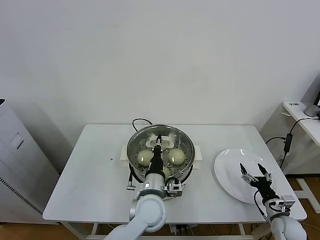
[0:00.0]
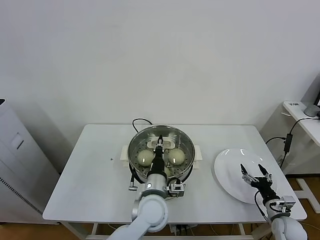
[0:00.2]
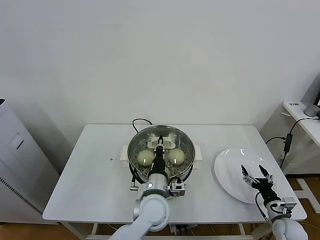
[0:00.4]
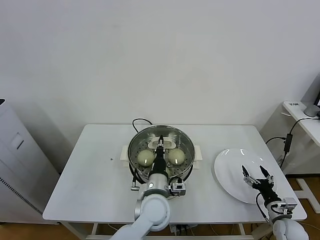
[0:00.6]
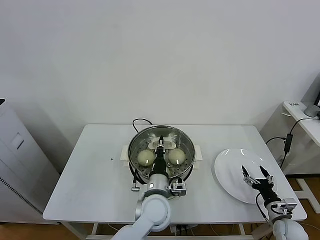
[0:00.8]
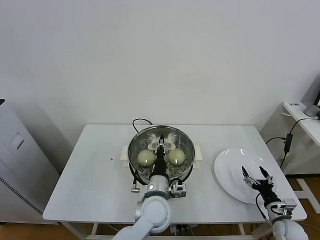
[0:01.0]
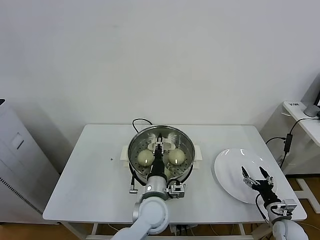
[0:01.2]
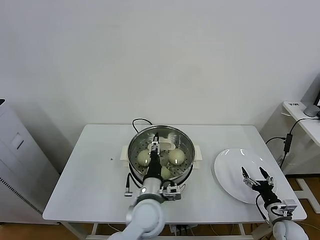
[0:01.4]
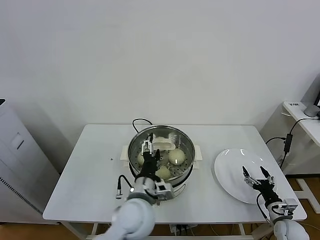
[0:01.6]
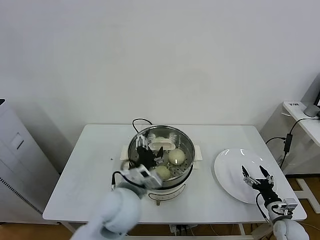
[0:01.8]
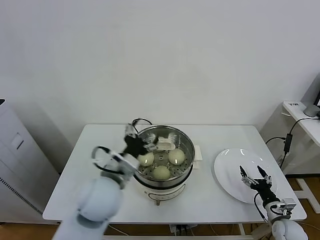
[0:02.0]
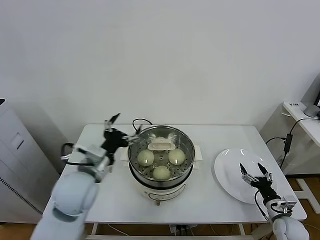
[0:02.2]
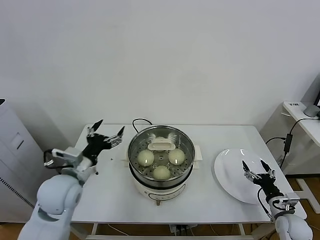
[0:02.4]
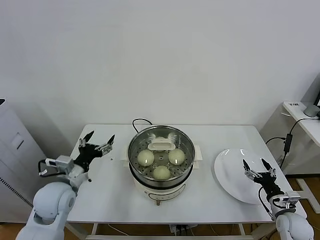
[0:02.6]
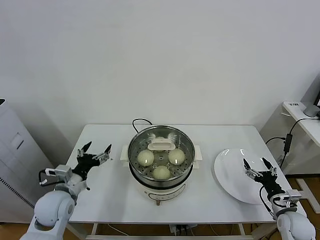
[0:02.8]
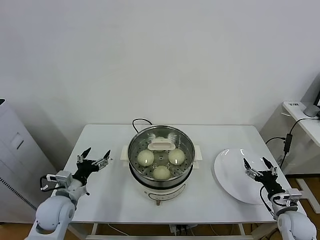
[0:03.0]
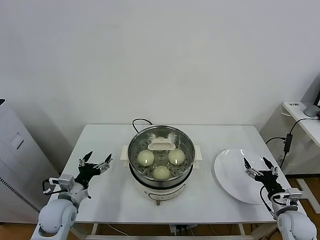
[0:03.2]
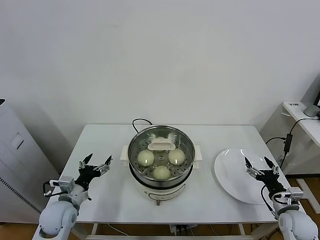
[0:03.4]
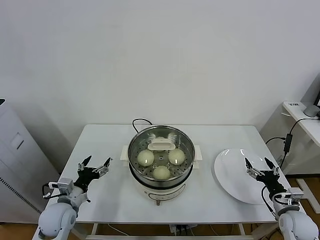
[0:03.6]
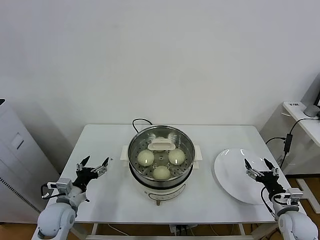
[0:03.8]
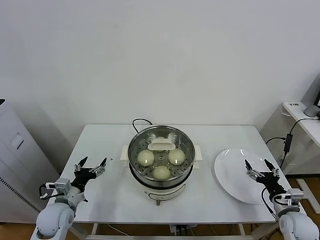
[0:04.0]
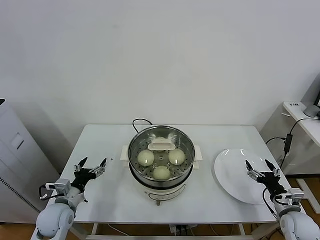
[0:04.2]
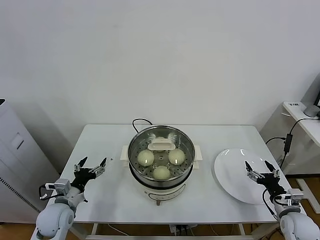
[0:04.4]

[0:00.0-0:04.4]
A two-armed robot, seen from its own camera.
Task of the whole recording: take steamed baozi put them in steamer.
0:00.0 to 0:01.4: The left gripper opens up.
0:01.4 to 0:03.0: The right gripper moves upward, roughly 5 cm. Meanwhile the left gripper heads to the left, covering approximately 30 cm.
0:03.0 to 0:04.4: The grippers stay close to where they were, moving slightly.
